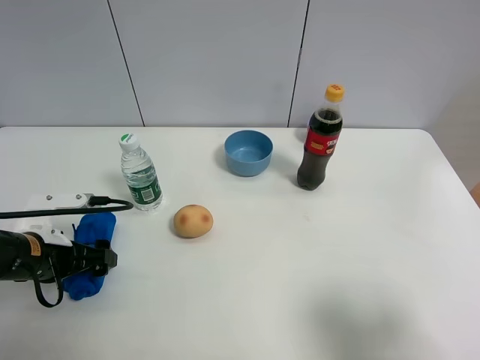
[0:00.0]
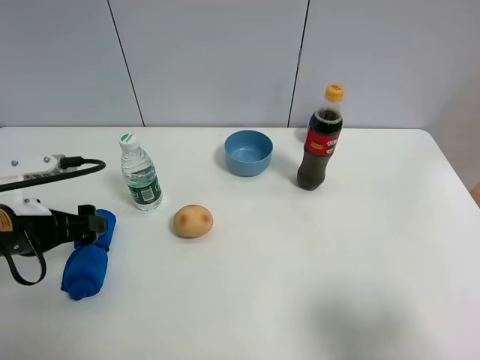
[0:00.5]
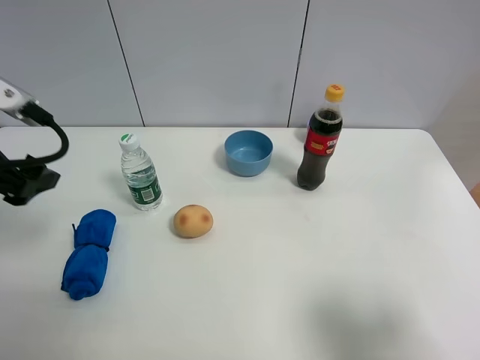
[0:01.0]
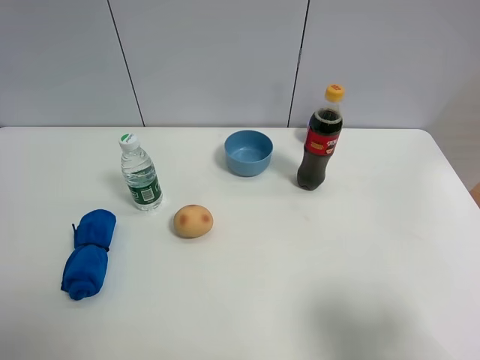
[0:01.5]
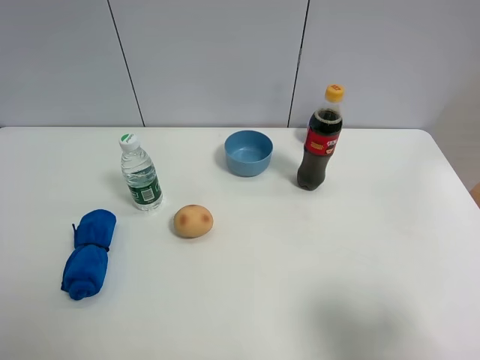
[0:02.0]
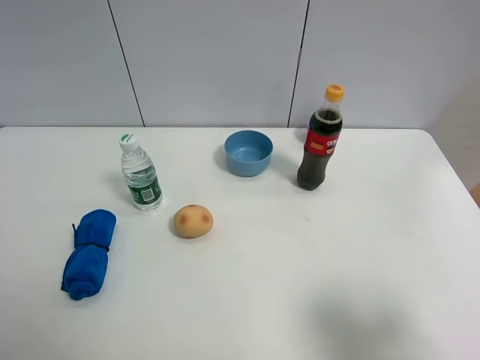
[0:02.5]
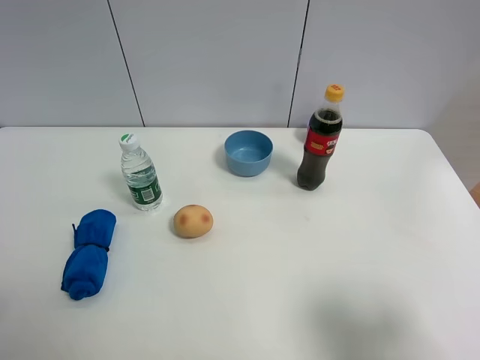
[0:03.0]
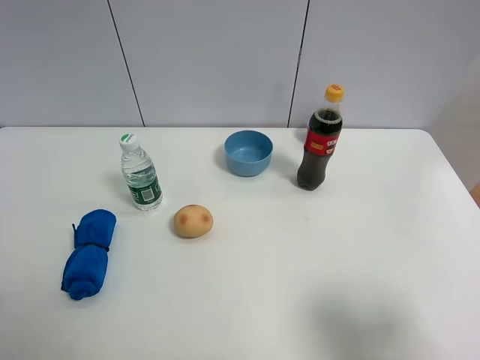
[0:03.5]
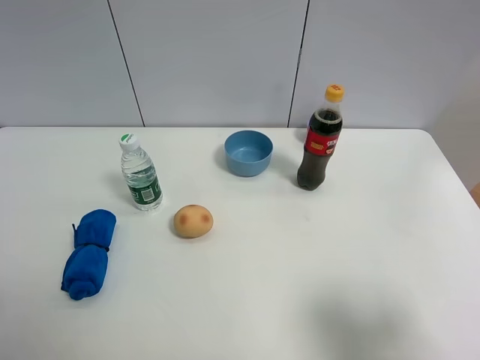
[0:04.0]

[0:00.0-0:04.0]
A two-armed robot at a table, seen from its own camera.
Task of the whole recording: the gripper move the object.
0:00.0 to 0:02.0: The left gripper travels upward and backward by approximately 35 cm.

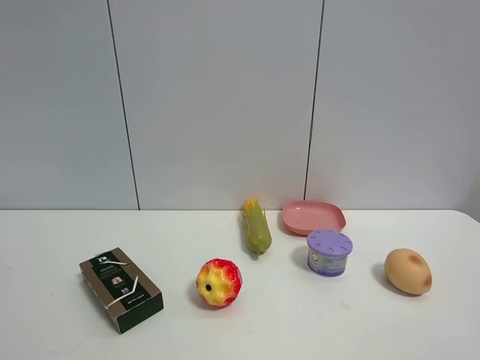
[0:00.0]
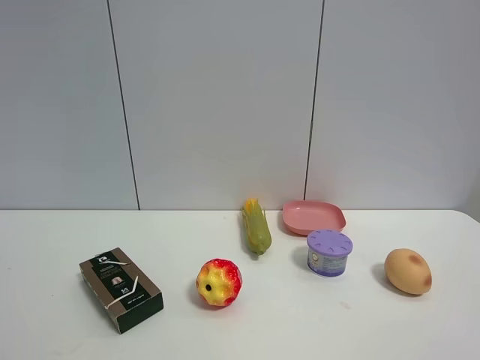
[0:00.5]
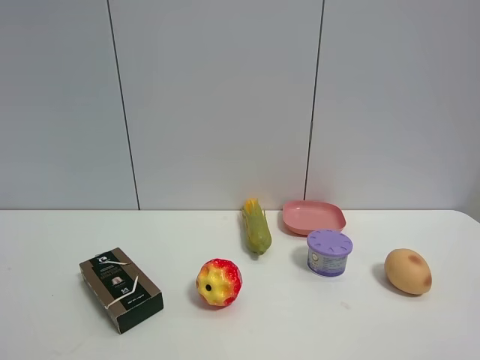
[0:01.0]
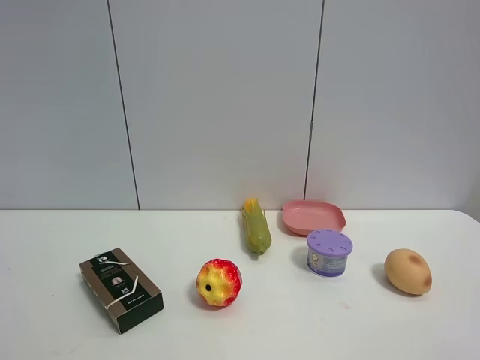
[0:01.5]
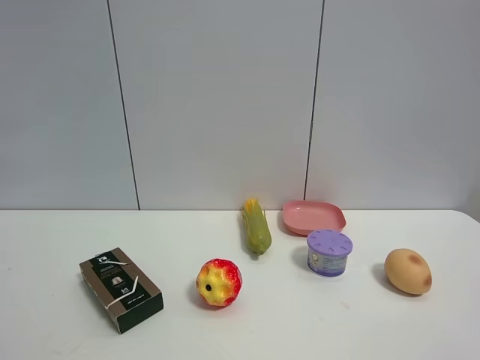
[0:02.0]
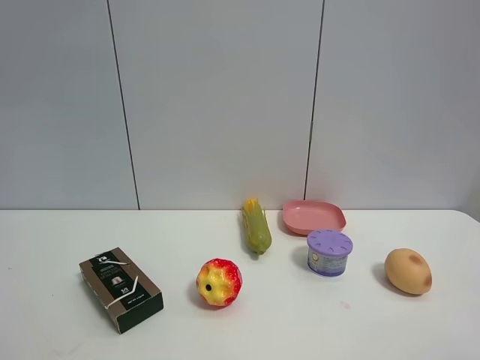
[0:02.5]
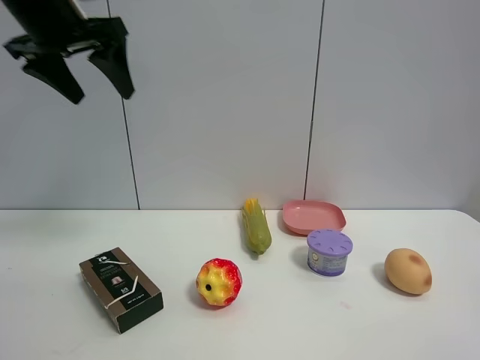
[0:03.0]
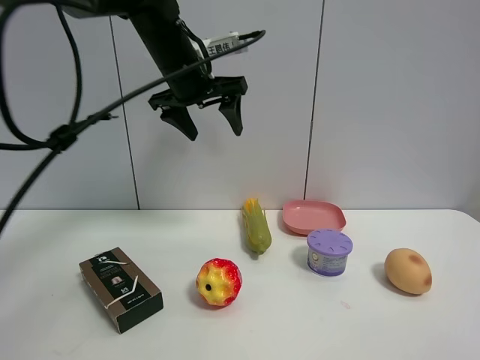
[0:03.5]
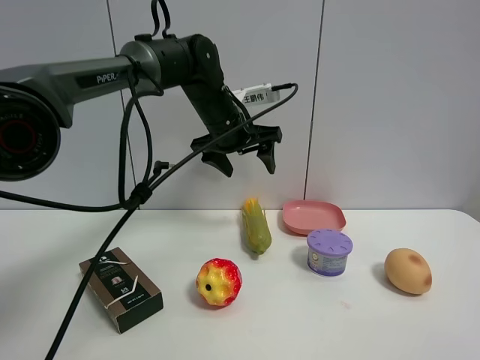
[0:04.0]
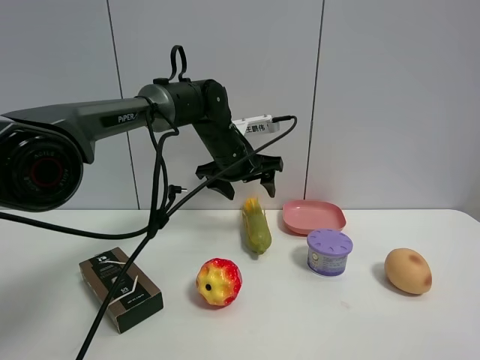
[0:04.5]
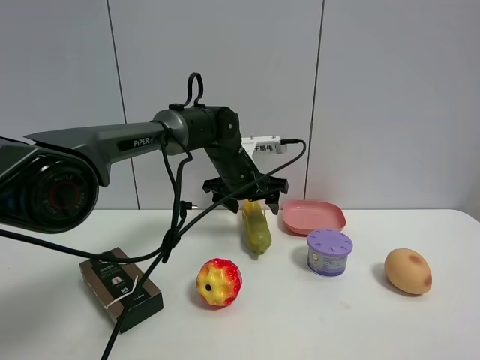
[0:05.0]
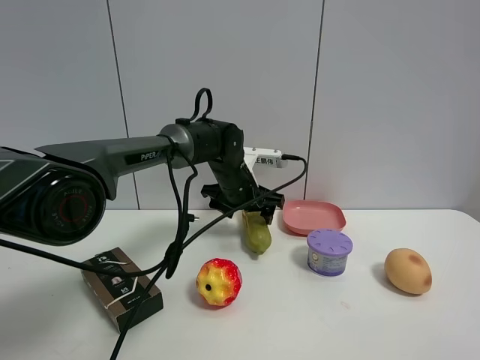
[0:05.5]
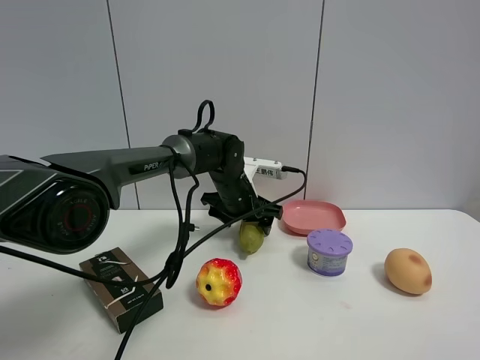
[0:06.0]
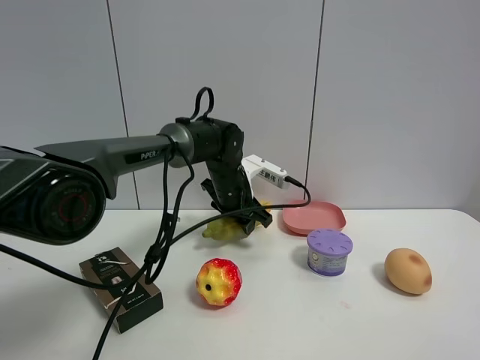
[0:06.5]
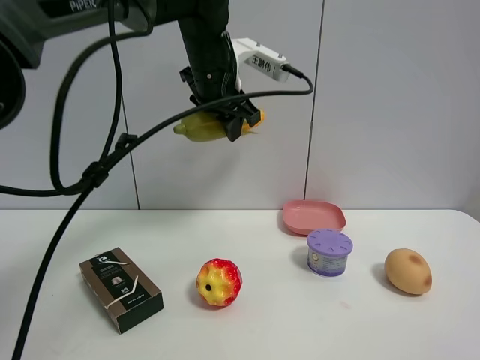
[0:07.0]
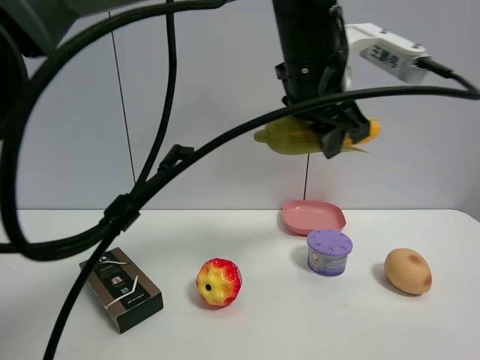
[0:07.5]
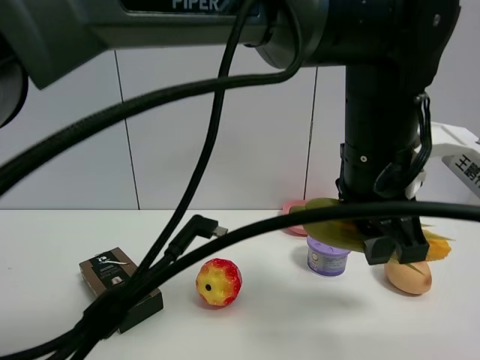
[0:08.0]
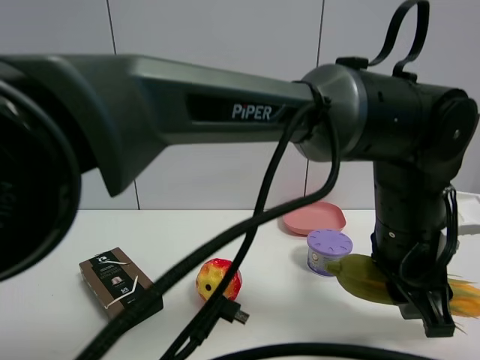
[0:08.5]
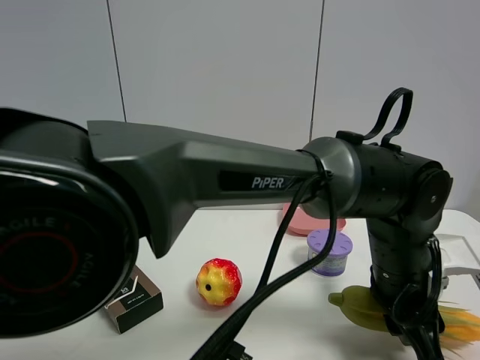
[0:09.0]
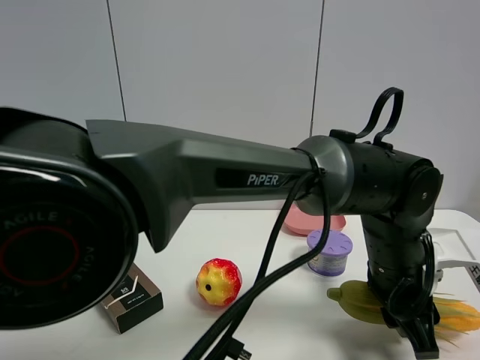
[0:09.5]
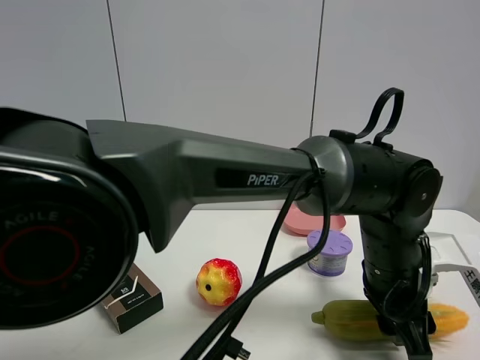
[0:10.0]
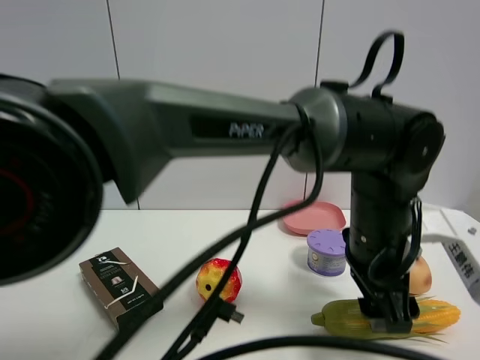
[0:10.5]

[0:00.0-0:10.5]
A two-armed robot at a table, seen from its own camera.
Task of the whole recording: the gripper move the object.
Step, 0:00.0 to 0:06.0: Grasp the corn with the left gripper.
Step, 0:06.5 to 0:10.0: Place the corn on the table with the left gripper.
0:02.0 to 0:04.0: The left gripper shifts roughly 50 cm forward, to the right and downward.
0:04.0 to 0:06.5: The left gripper is displaced downward by some 10 cm, and closes its fingers.
0:06.5 to 0:08.5: The left gripper shifts approximately 30 cm backward and to the right.
0:08.5 to 0:10.5: The left gripper opens its fingers.

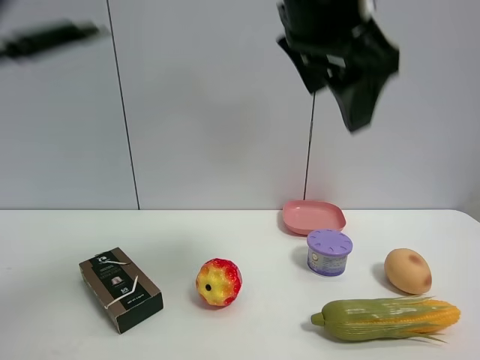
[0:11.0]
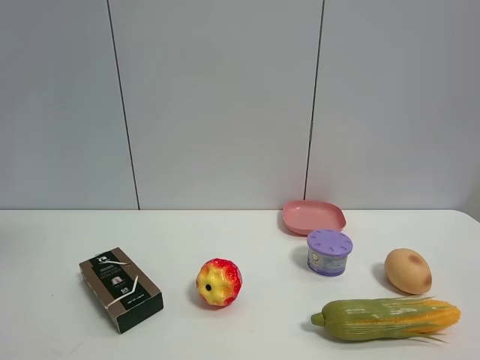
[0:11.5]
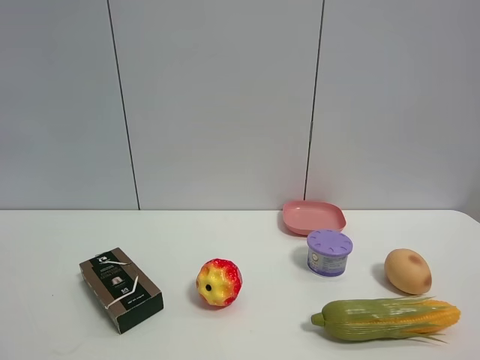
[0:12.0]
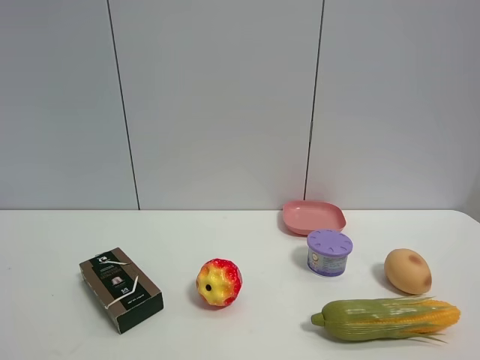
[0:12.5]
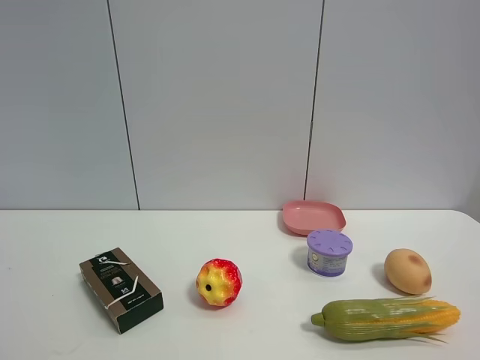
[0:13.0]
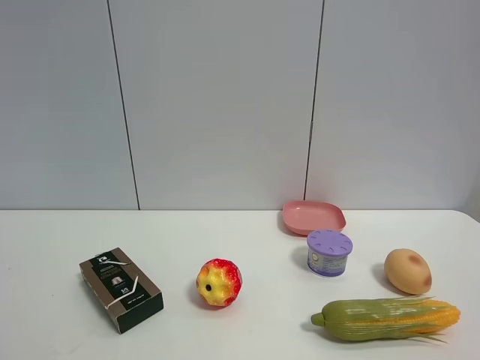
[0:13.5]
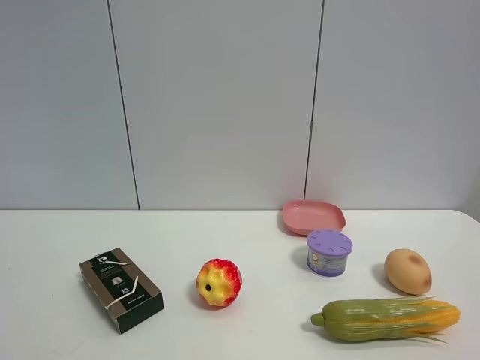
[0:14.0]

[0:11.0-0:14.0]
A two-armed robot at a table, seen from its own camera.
Task of the whole recording: the gripper move the object.
0:11.0 to 0:12.5: The left gripper goes some 50 cm to the left and backward.
